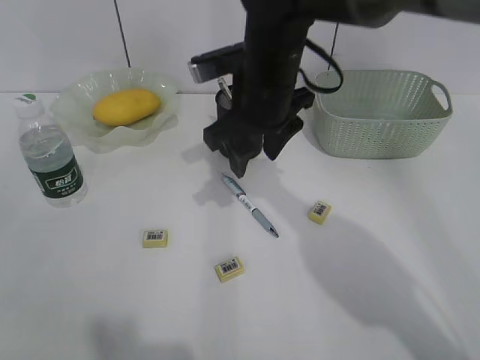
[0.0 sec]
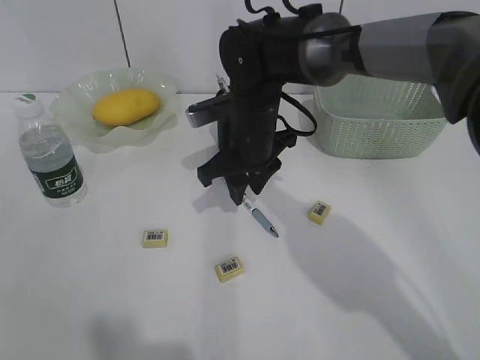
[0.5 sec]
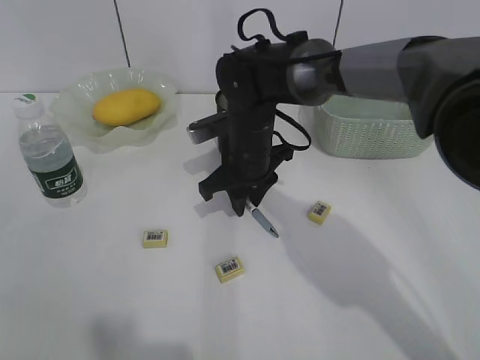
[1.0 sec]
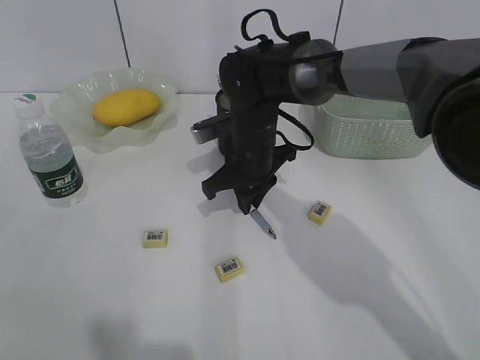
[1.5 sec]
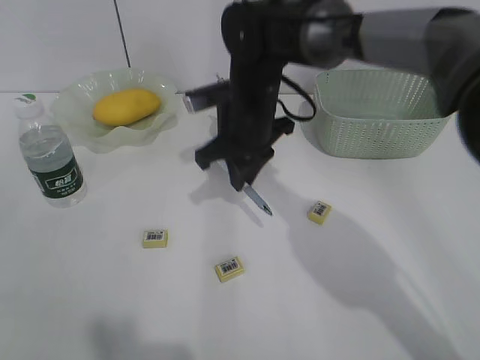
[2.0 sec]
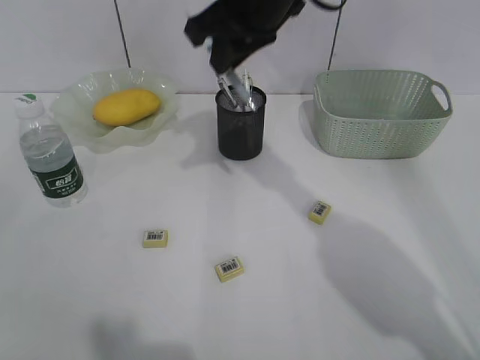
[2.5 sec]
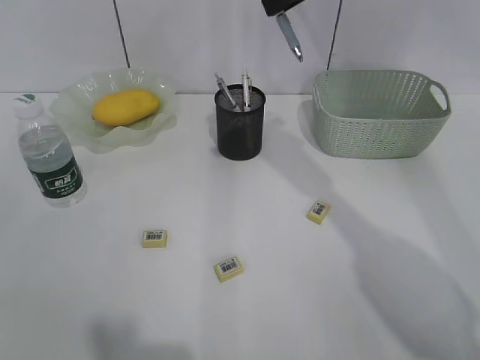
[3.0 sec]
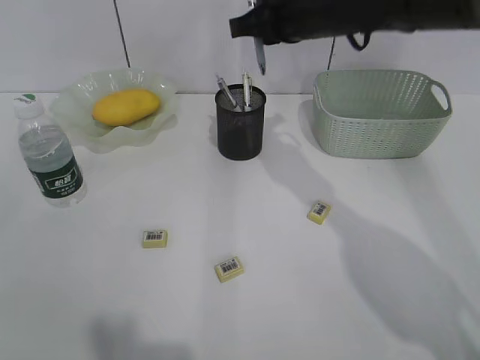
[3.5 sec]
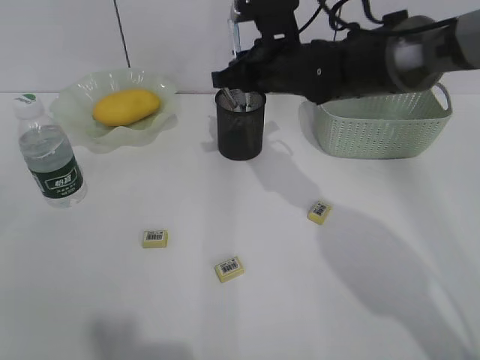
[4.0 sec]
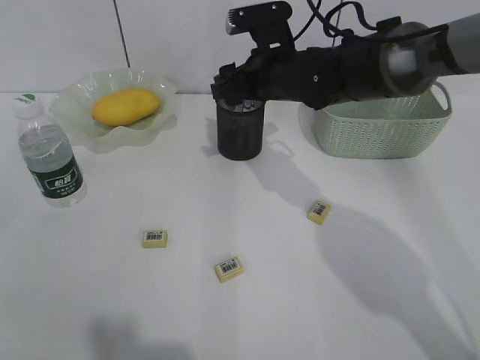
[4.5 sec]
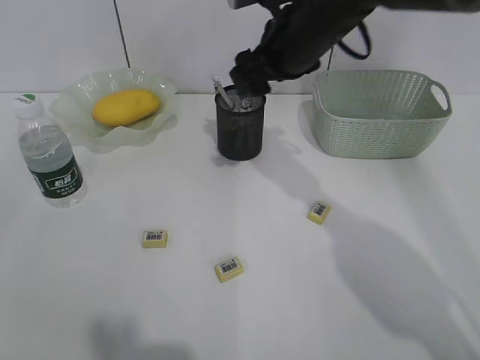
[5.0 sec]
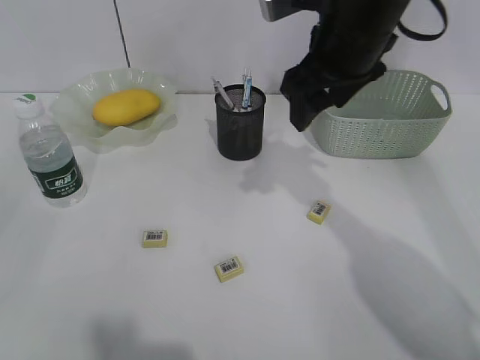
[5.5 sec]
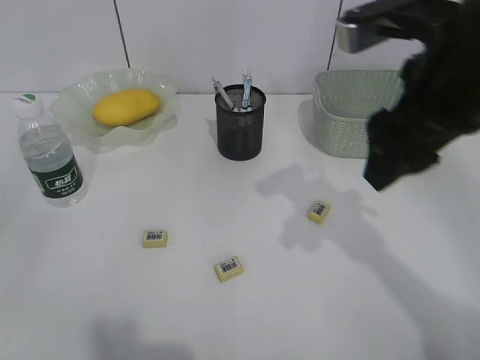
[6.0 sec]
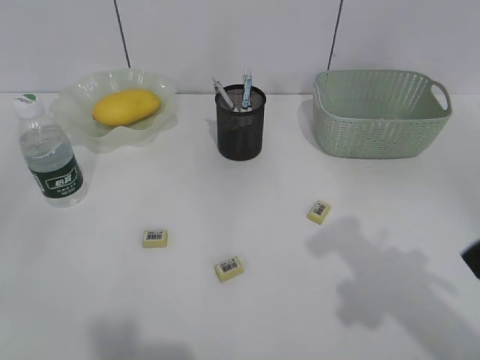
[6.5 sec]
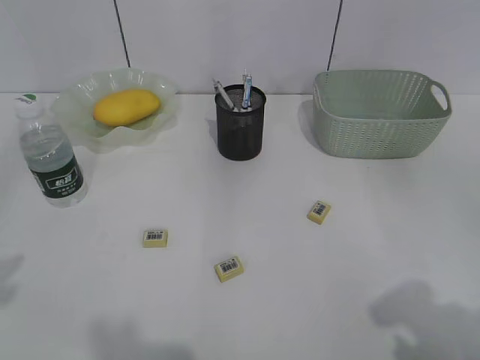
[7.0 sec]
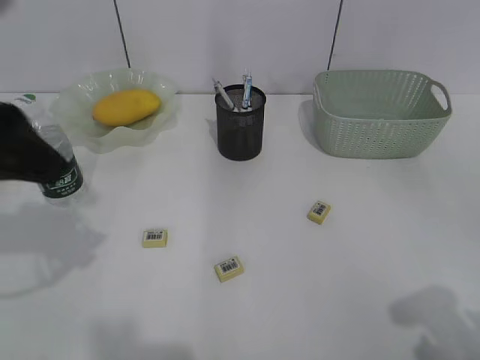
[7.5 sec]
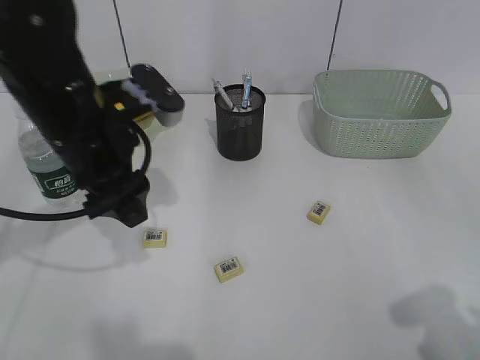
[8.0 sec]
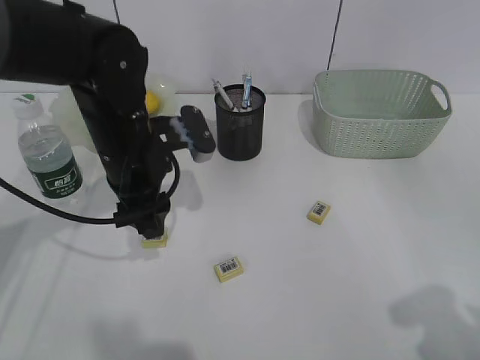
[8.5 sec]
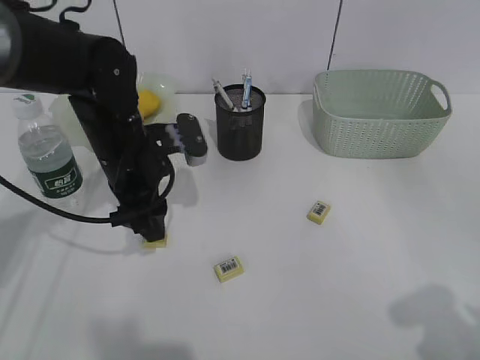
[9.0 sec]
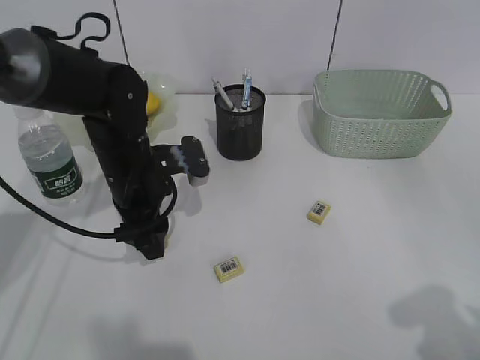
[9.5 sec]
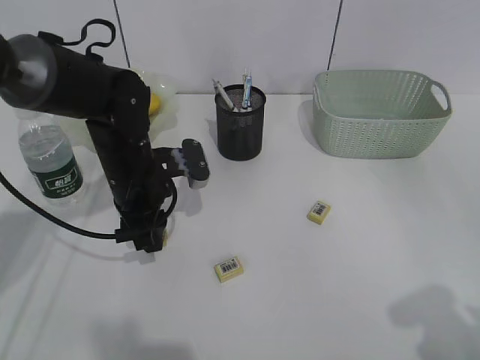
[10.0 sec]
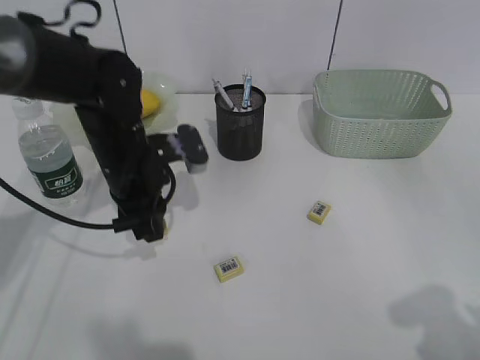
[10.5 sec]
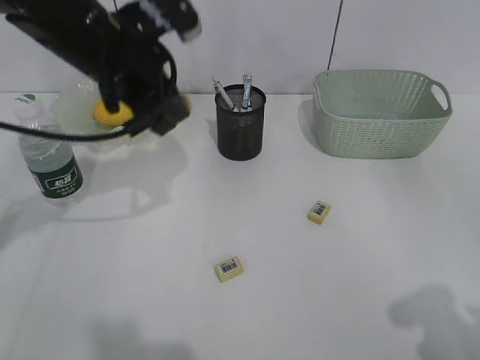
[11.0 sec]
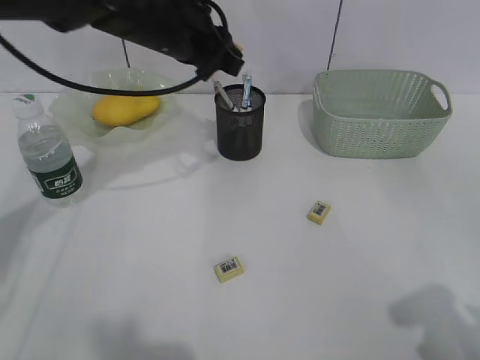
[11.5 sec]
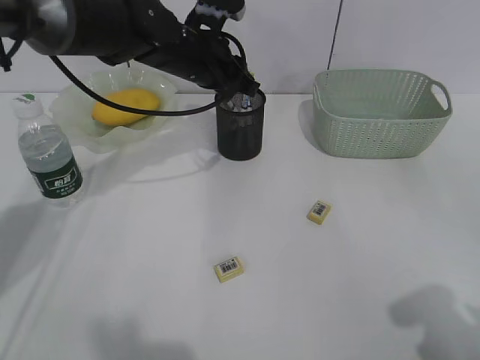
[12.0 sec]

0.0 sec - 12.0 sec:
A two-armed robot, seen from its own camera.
Step, 2.0 sec - 4.5 sec: Place the blue pen in pen holder with right gripper.
Step, 5.0 sec - 10.0 sec: Grasp the eraser with left gripper.
0.0 sec - 2.0 sec: The right gripper is displaced downward by roughly 5 cm, and closes up.
2.0 sec - 4.0 sec: The right gripper travels upward and back again, about 20 cm each way.
4.0 sec - 6.0 sec: The right gripper heads backward, upward and to the right, covering approximately 20 cm, and opens up.
6.0 sec - 8.0 sec: The right gripper moves backward and to the right, approximately 25 cm; the left gripper heads forward and to the right, covering some 30 cm.
8.0 sec - 10.0 sec: The left gripper moves downward and forward, roughly 15 cm.
10.0 sec - 12.0 sec: The left gripper heads forward, upward and to the right, covering approximately 15 cm.

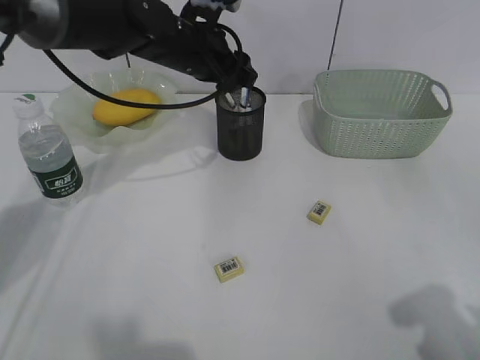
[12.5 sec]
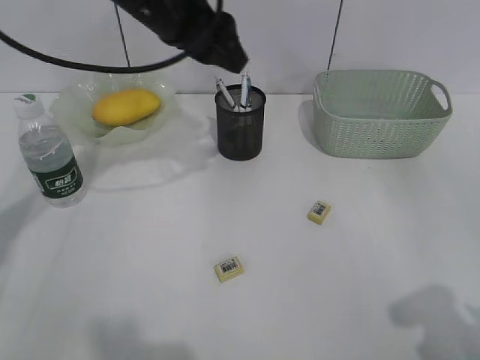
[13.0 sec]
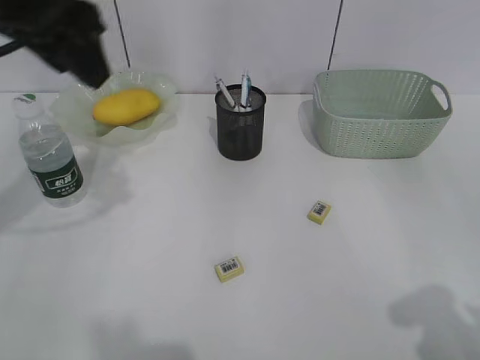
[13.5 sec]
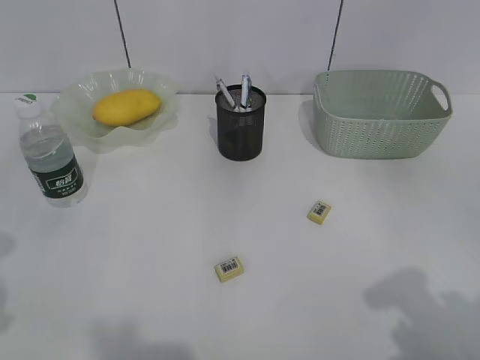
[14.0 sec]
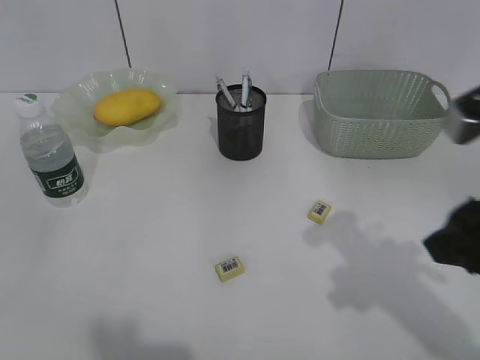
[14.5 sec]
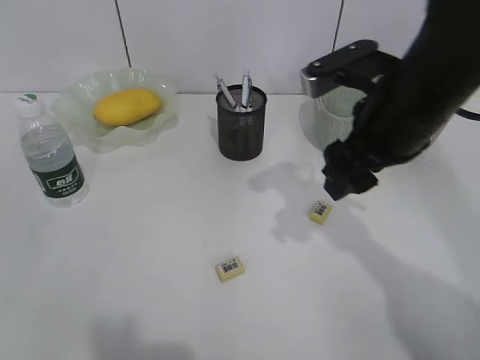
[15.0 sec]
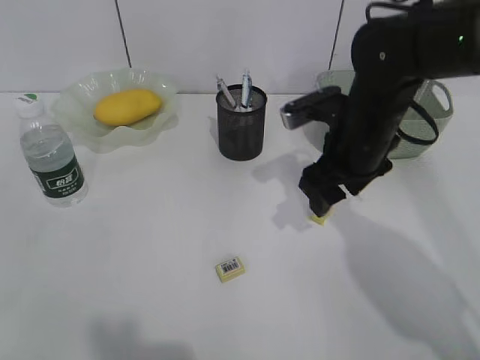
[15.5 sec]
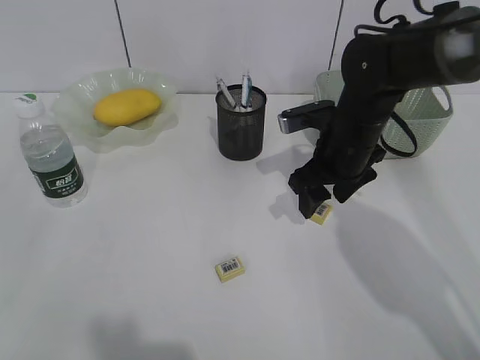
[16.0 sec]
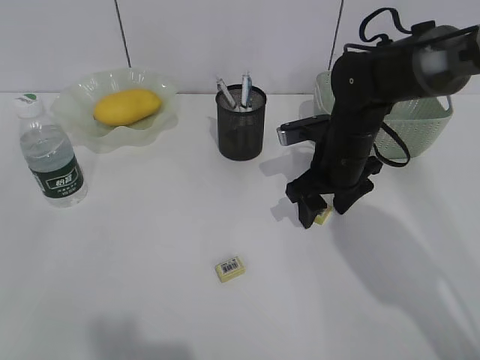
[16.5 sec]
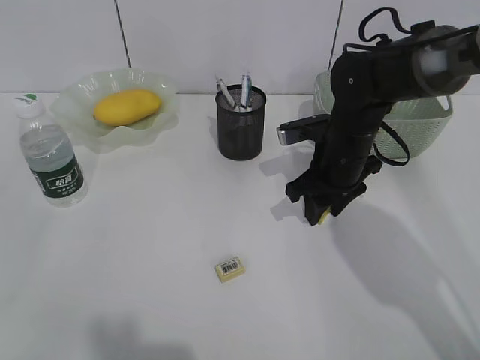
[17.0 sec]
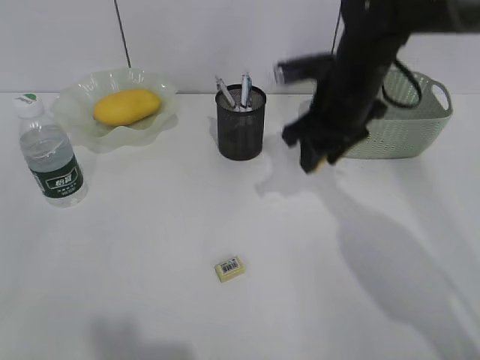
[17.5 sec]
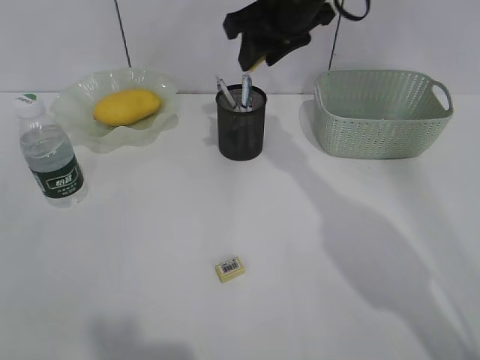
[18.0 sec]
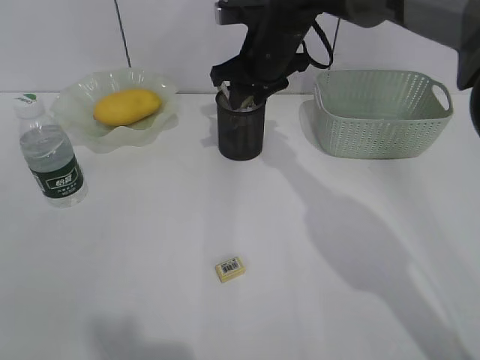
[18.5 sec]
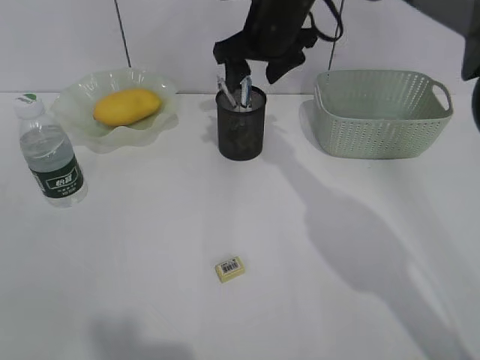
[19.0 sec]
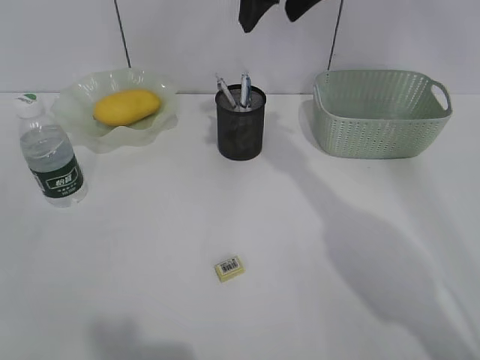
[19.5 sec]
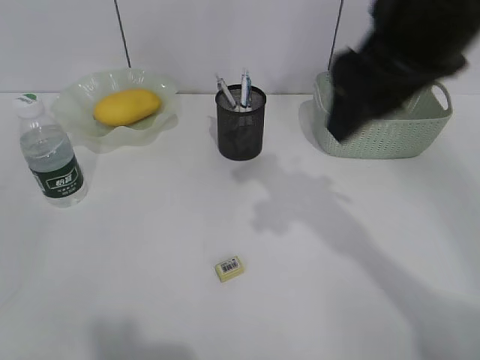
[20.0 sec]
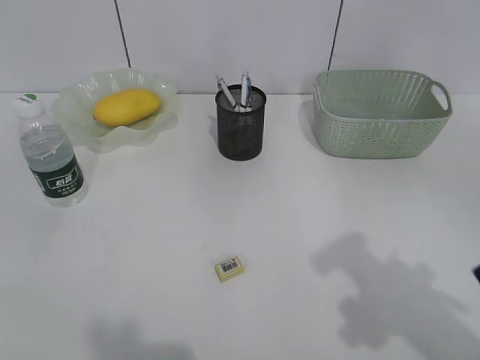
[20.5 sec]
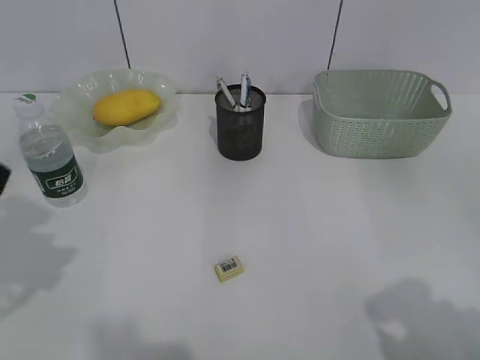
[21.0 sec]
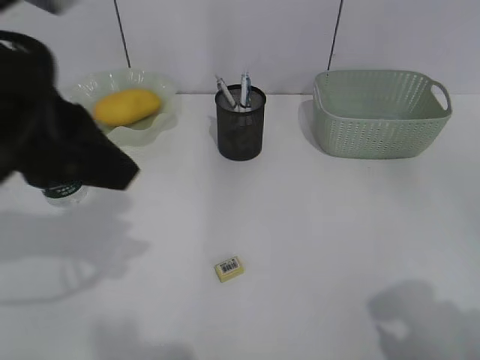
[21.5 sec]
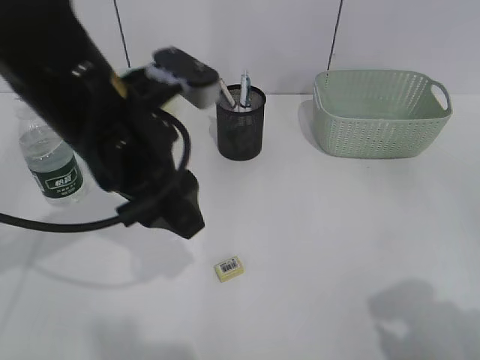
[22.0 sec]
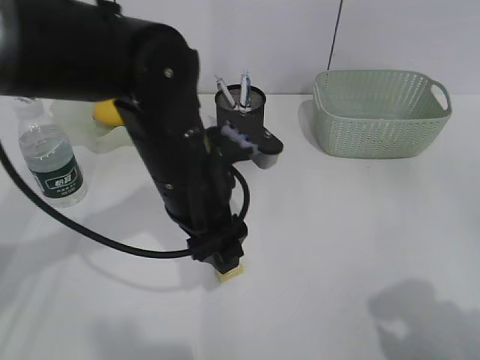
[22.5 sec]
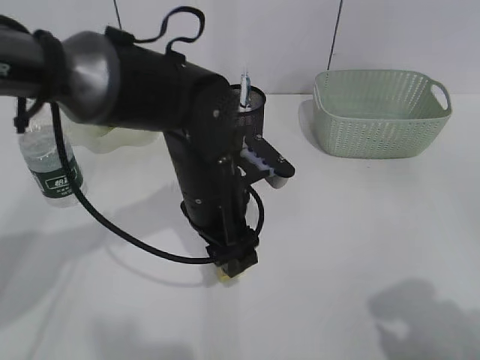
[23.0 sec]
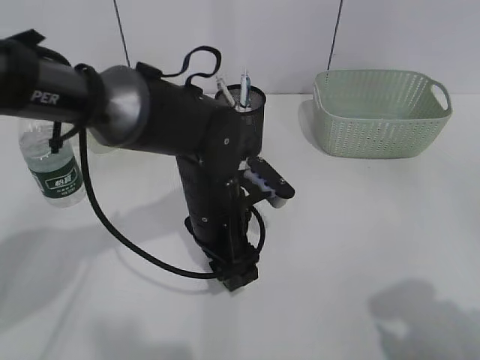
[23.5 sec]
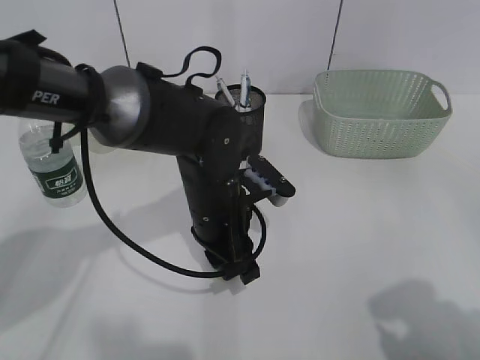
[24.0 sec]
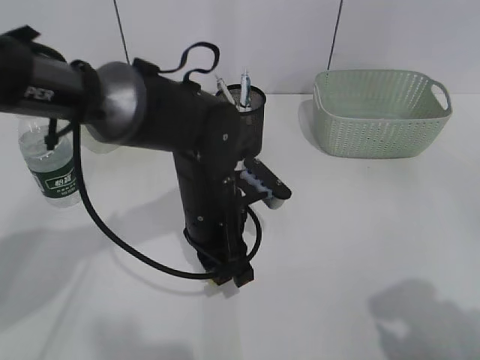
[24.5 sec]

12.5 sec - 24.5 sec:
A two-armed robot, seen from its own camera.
Step, 12.5 sec - 17.0 sec: Grasp the eraser with right gripper.
Step, 17.5 sec - 18.5 sec: Place the eraser in pen holder with right gripper.
Step, 19.0 sec - 24.0 sec: Grasp the eraser with left gripper.
12.5 sec - 14.5 sec: The right gripper moves forward and to the left, about 15 cm. The left gripper goes about 40 cm backward and to the left.
14.5 sec - 16.5 sec: The left gripper is displaced backward by about 5 cm. The right gripper travels forward, downward and to the left by about 25 cm.
16.5 sec - 18.5 sec: The right gripper heads upward, to the left and forward, covering approximately 15 cm, and closes up.
18.5 sec - 20.5 sec: The right gripper travels backward and to the right by some 40 cm, and opens.
20.5 sec - 22.5 sec: The right gripper shifts roughly 10 cm backward and to the right, while the left gripper shifts approximately 35 cm to the right, forward and downward.
22.5 sec - 24.5 sec: The left gripper moves downward, about 10 cm, and closes its fingers.

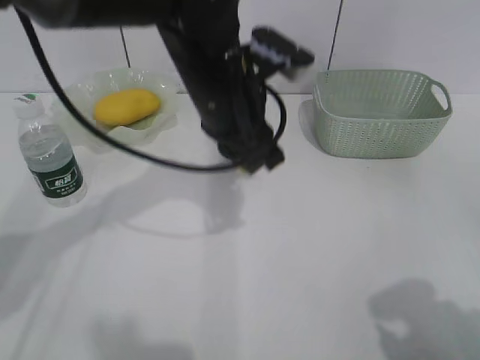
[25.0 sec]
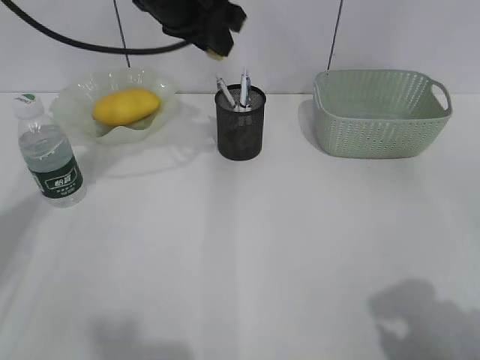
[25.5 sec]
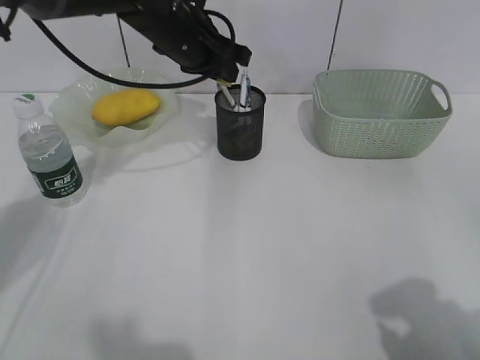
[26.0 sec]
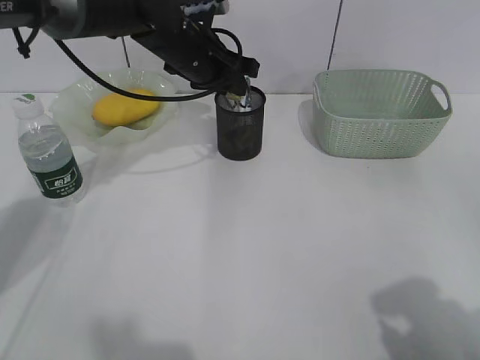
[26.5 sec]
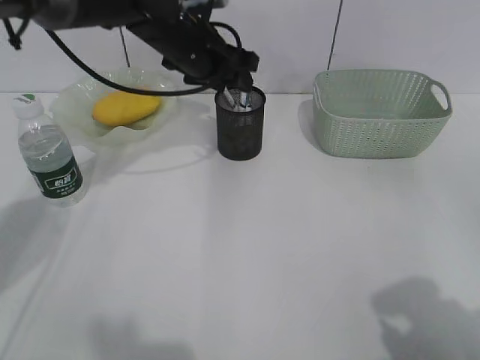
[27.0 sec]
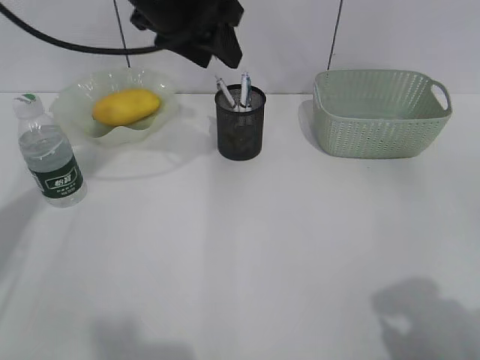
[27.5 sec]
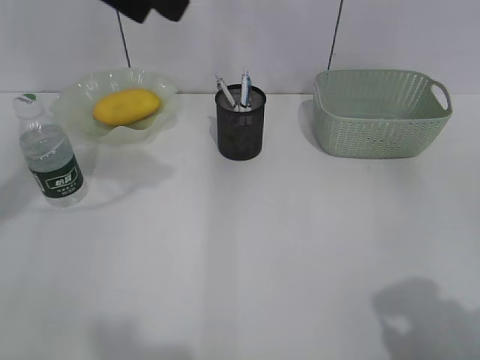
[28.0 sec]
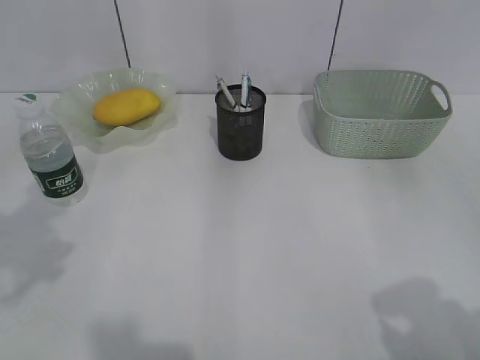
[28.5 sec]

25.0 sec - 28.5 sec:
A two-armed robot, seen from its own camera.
Step, 25.0 sec - 26.5 sec: Place the eraser in pen holder with left gripper.
25.0 sec - 27.0 sec: The left gripper heads forward, covering approximately 15 cm, and opens.
27.0 sec - 28.5 sec: The left gripper heads backward, to the left and upward, covering roughly 35 cm.
